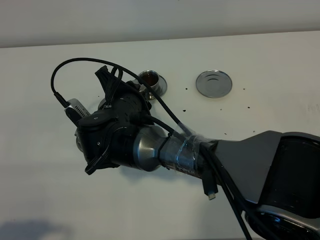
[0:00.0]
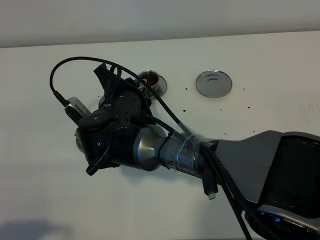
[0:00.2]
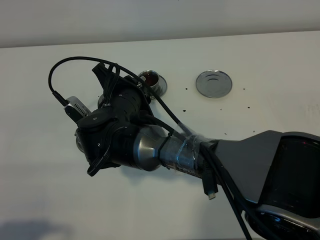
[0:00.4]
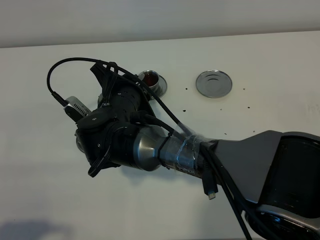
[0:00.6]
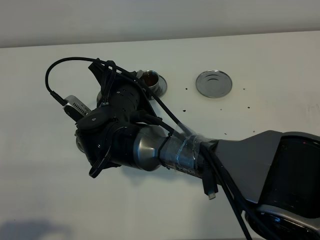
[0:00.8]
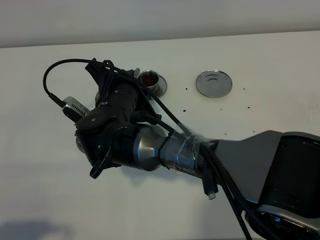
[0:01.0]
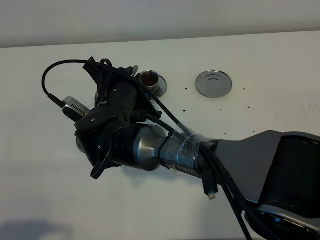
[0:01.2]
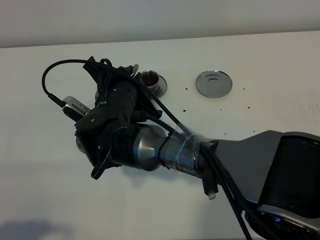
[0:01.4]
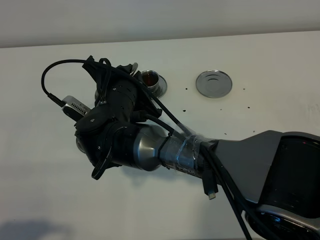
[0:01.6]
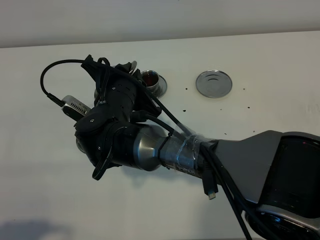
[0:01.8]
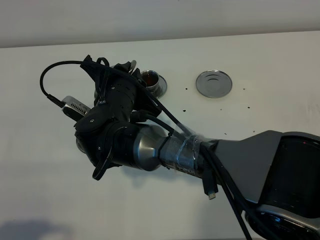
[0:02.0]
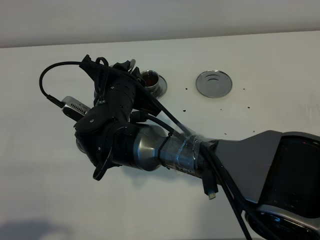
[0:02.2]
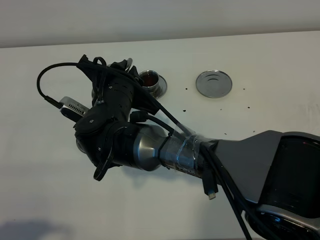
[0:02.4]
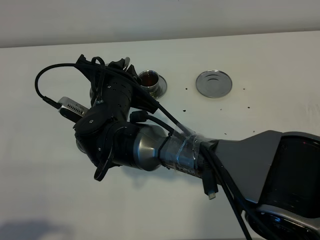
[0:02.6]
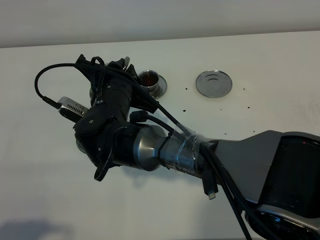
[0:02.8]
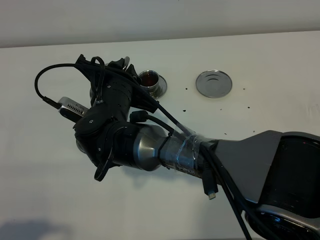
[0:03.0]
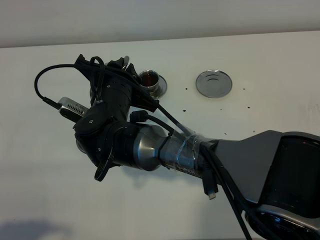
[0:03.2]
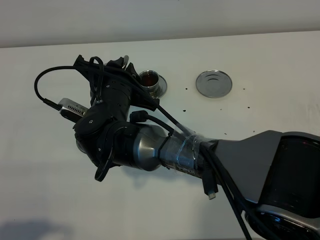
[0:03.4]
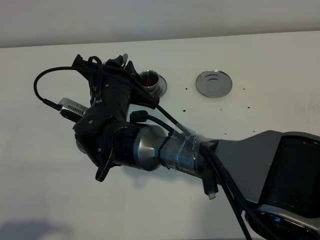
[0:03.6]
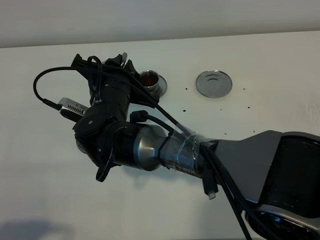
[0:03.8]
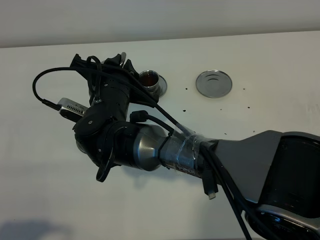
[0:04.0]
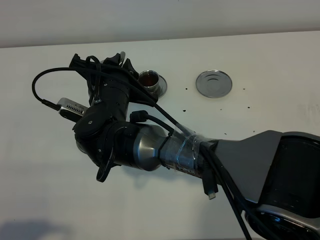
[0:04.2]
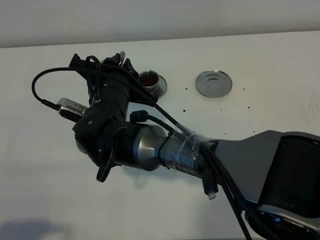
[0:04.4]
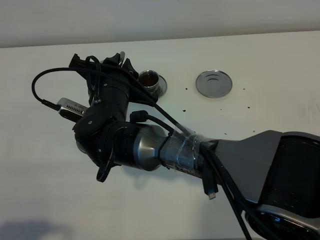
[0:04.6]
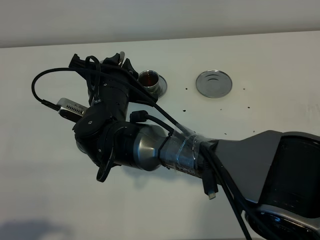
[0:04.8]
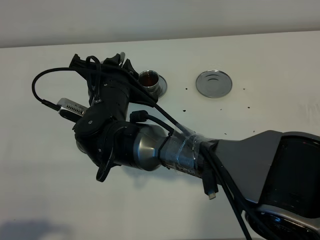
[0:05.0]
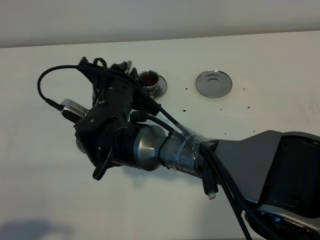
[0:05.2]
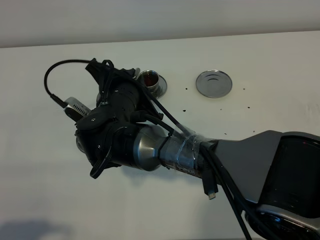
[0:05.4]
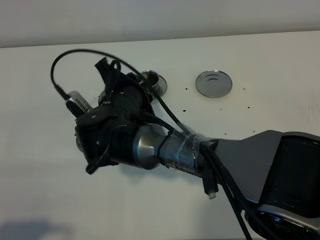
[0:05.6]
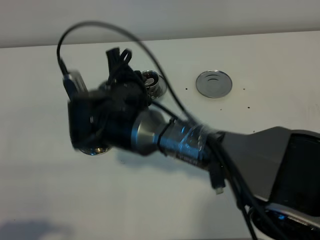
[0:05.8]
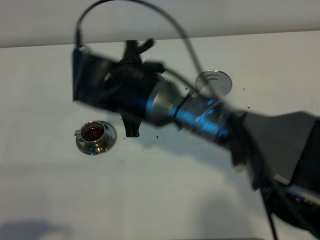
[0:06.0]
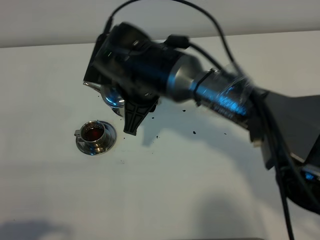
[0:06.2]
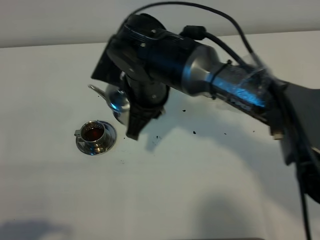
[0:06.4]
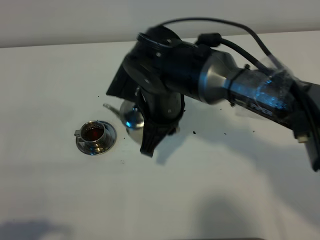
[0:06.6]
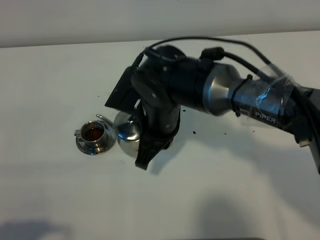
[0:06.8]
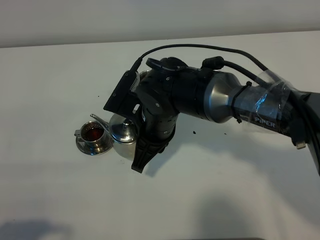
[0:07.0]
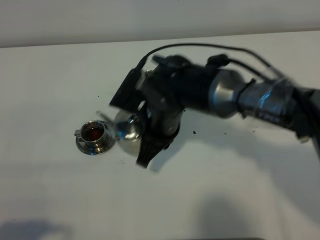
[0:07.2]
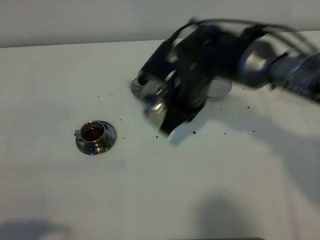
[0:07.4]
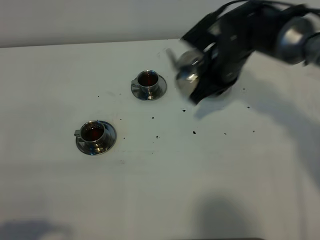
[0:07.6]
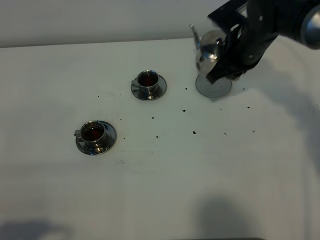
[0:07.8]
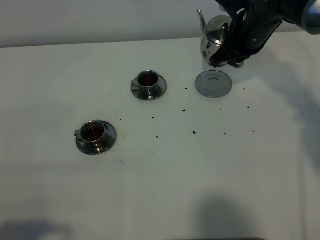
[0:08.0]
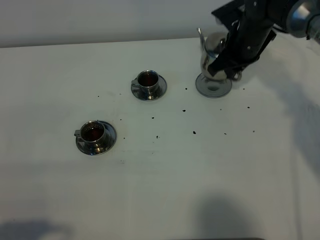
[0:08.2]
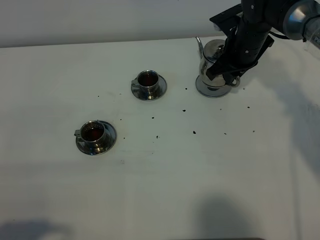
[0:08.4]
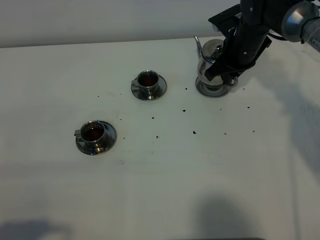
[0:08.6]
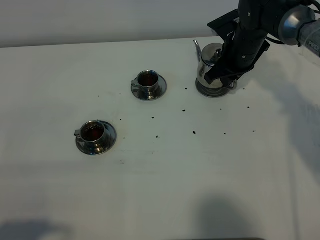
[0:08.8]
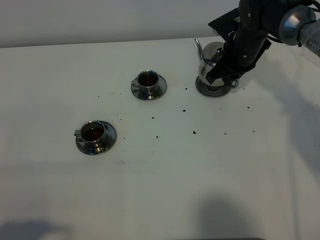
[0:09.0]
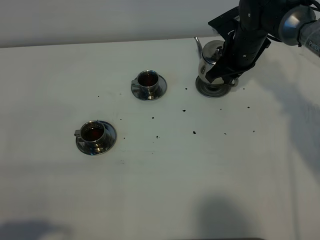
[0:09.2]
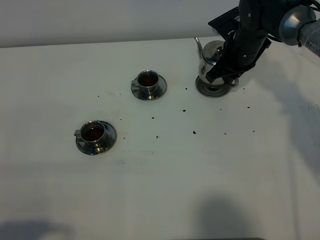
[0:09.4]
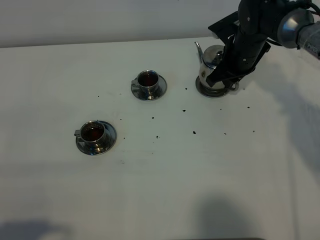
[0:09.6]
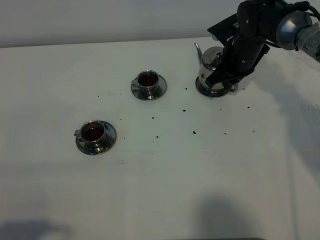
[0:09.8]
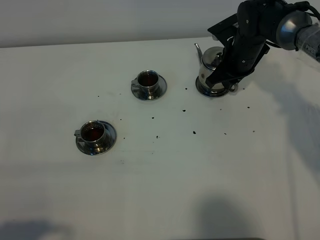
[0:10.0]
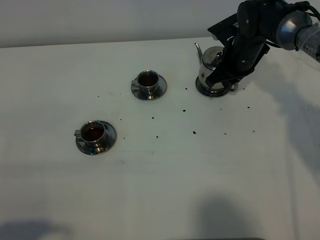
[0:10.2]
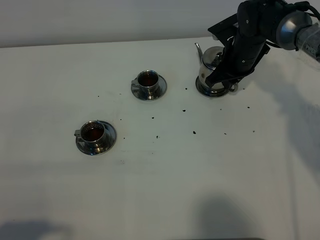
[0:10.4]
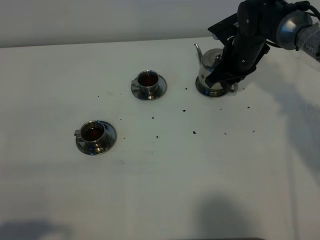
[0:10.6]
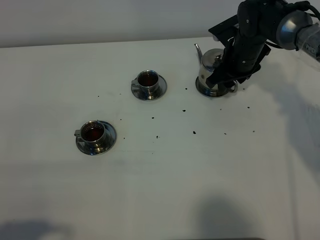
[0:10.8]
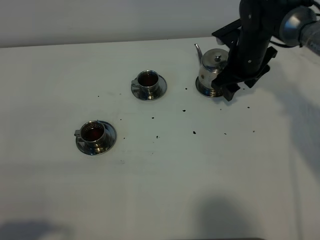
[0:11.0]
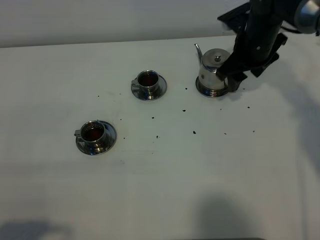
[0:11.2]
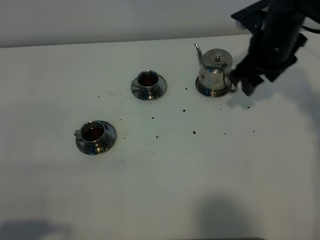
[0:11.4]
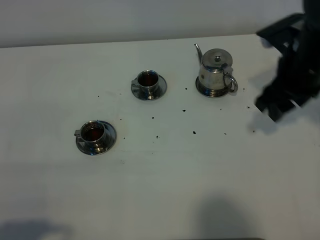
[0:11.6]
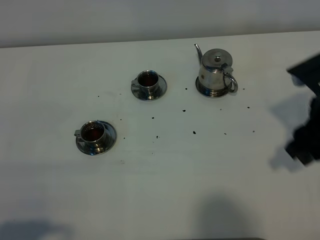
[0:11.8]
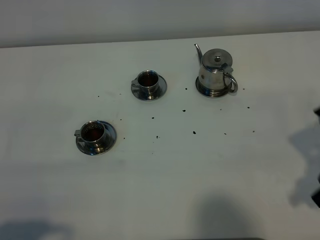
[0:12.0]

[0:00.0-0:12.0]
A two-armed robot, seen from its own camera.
Task of the whole recording: grasp the stainless steel teapot and pour the tea into the two stainless steel teacups one by one, put the stainless steel teapot back in its original place.
Step, 0:00.0 to 0:05.8: Pour tea into the teacup with the right gripper.
0:00.0 to 0:01.6: The grippers stay close to where they were, moving slightly.
0:01.6 to 0:04.4: The grippers make only small movements.
0:04.4 to 0:06.0: The right gripper changes place by about 5 cm.
0:06.0 to 0:07.6: The right gripper goes roughly 20 cm to the right and forward.
0:07.6 to 0:09.0: The right gripper is displaced forward by roughly 5 cm.
0:09.0 to 0:10.4: Neither gripper changes place.
0:10.4 to 0:12.0: The right gripper is displaced backward by approximately 30 cm, and opens its fingers.
